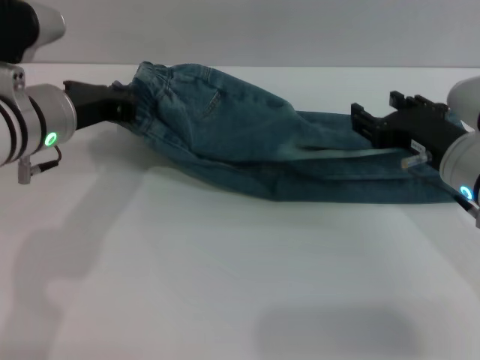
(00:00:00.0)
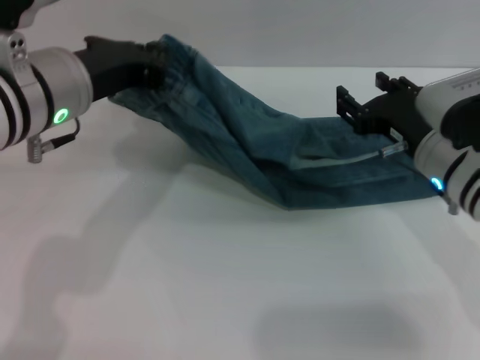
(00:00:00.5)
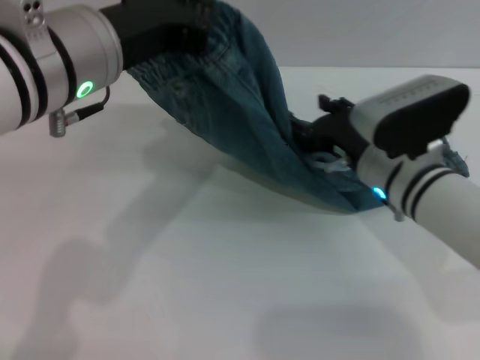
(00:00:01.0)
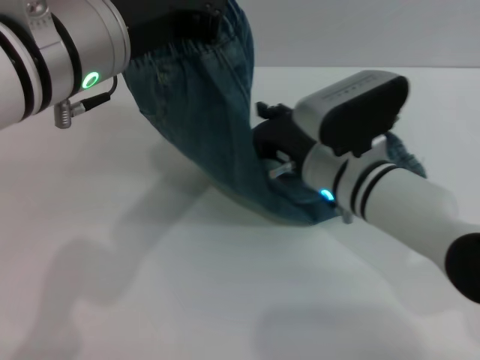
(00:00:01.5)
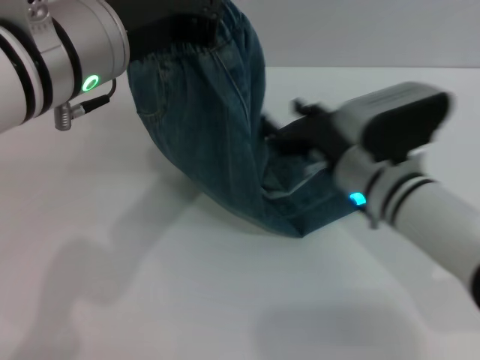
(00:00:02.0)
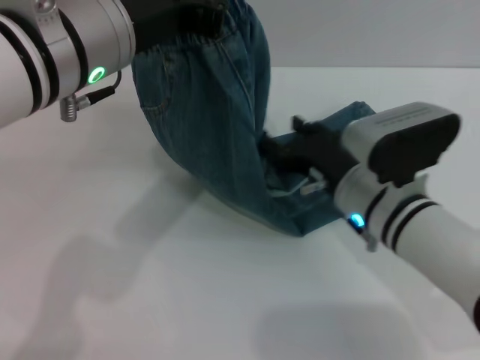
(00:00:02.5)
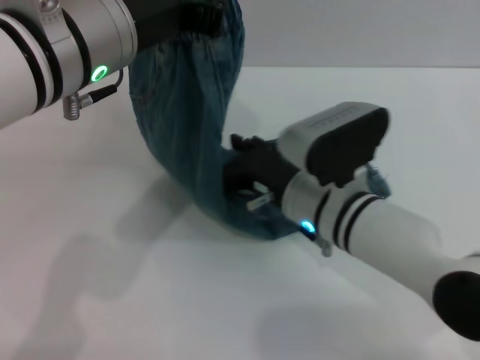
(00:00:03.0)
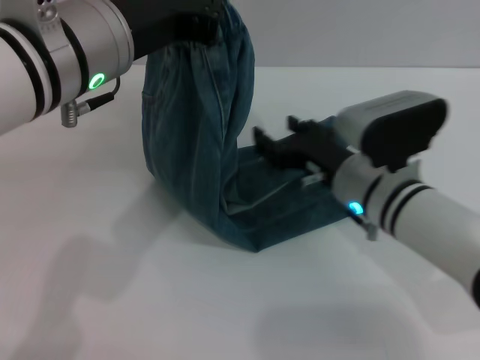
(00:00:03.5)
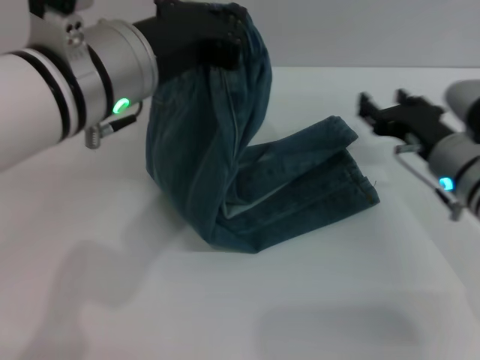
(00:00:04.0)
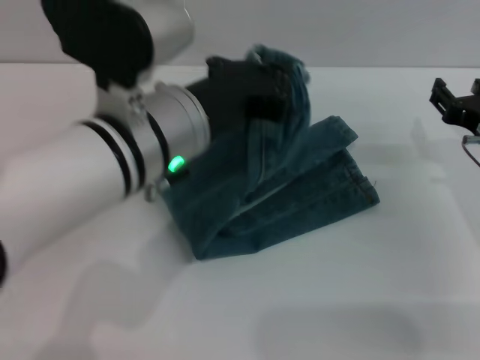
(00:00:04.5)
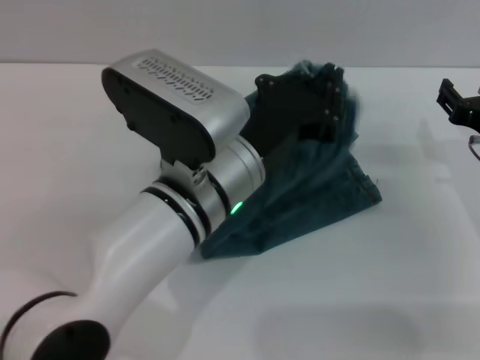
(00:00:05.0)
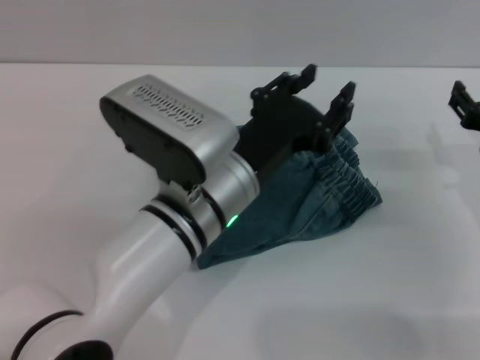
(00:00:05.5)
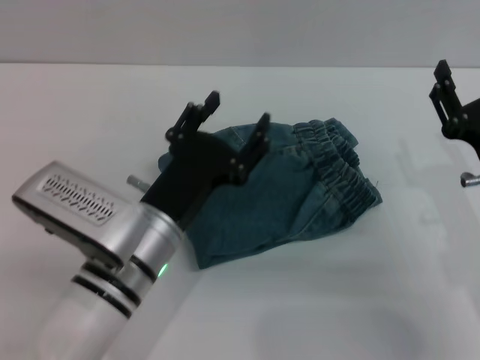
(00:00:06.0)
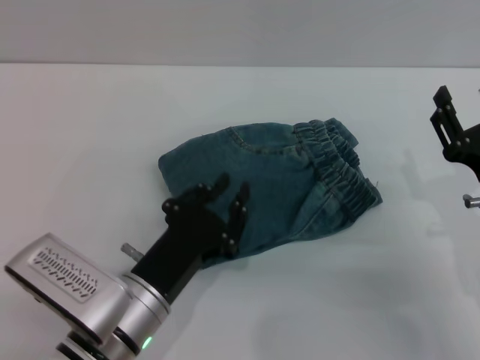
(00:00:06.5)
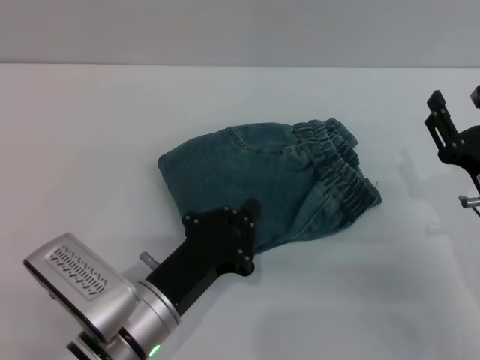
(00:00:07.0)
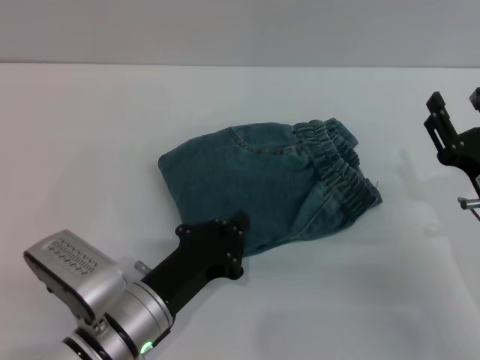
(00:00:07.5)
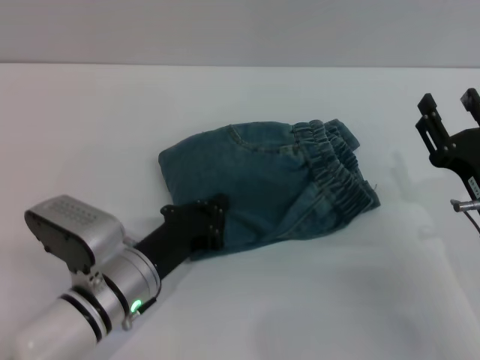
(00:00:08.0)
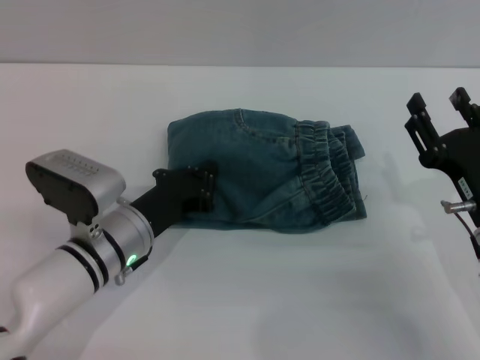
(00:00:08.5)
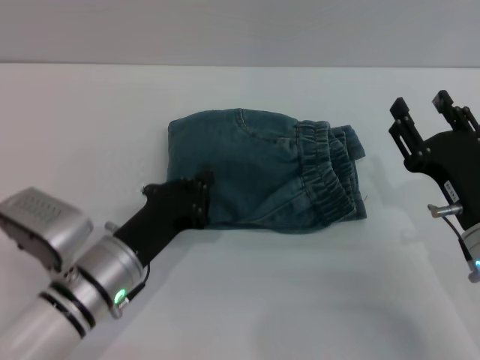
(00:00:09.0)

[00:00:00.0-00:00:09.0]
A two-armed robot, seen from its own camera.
Step, 00:00:00.0 to 00:00:05.0: Fold the pants from left to right with the left gripper.
00:00:00.0 to 00:00:02.0: The left gripper moves upward and to the right, some 10 cm. Meanwhile the right gripper travels to the left by approximately 10 cm.
00:00:02.0 to 00:00:04.5: The left gripper shifts approximately 5 cm downward; the right gripper goes approximately 15 cm to the right.
00:00:04.5 to 00:00:07.0: The left gripper shifts some 20 cm downward and backward, and opens, then closes once more. Meanwhile the right gripper shifts some 10 cm backward.
00:00:07.0 to 00:00:09.0: The left gripper is displaced forward by some 5 cm.

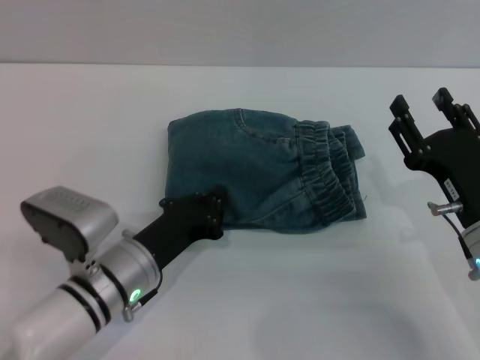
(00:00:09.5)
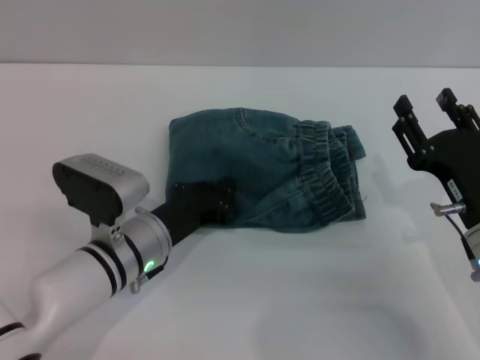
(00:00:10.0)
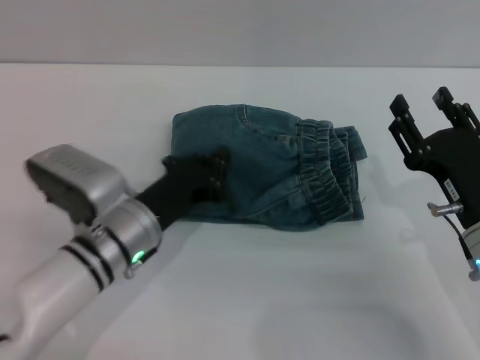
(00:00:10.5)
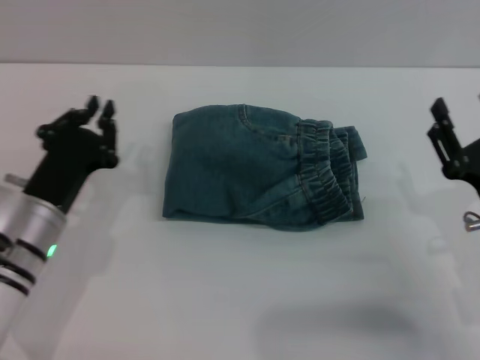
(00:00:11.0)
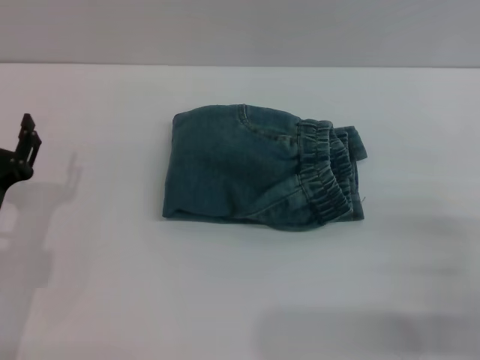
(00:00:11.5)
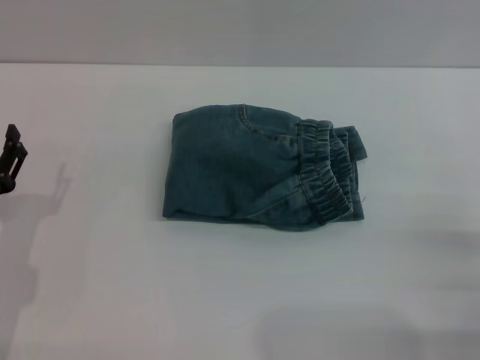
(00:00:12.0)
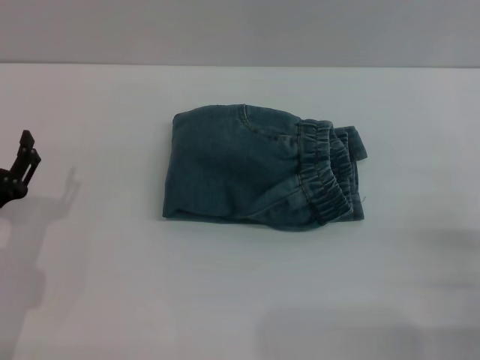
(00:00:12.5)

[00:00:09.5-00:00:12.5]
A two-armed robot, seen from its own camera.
00:00:09.5 to 00:00:11.0: The left gripper heads to the left, covering about 5 cm.
00:00:11.0 to 00:00:12.5: The right gripper is displaced to the right by about 5 cm, while the left gripper heads to the left, covering about 5 cm, and opens.

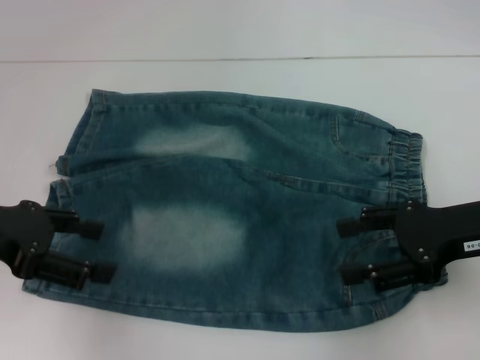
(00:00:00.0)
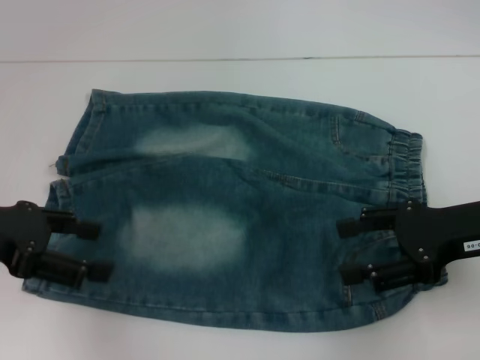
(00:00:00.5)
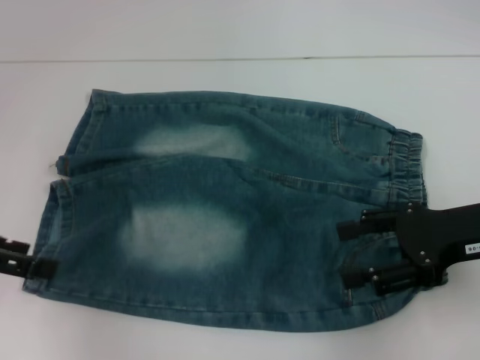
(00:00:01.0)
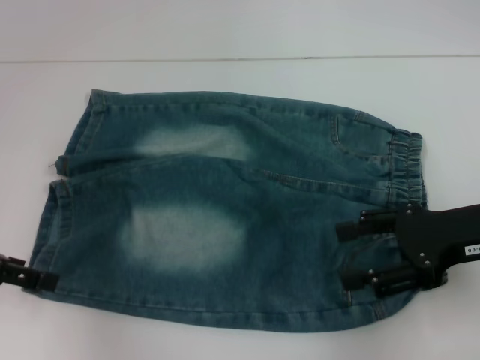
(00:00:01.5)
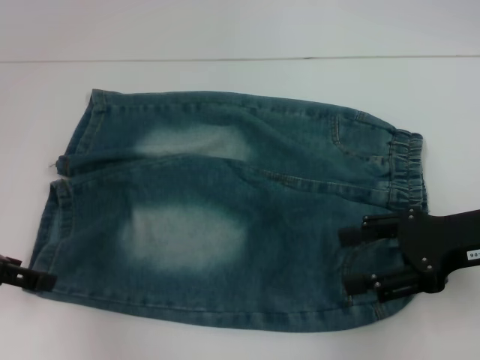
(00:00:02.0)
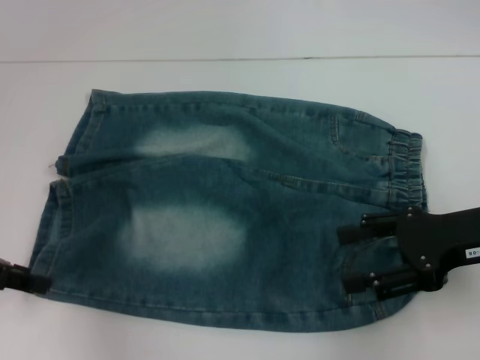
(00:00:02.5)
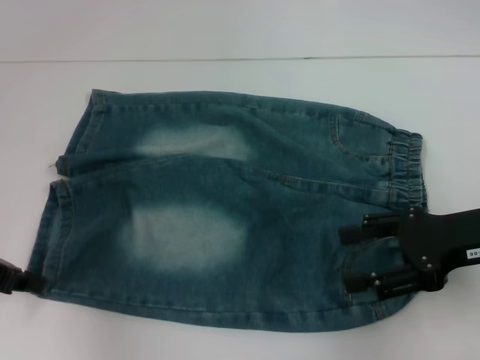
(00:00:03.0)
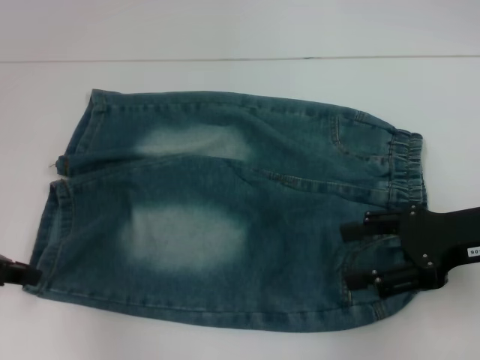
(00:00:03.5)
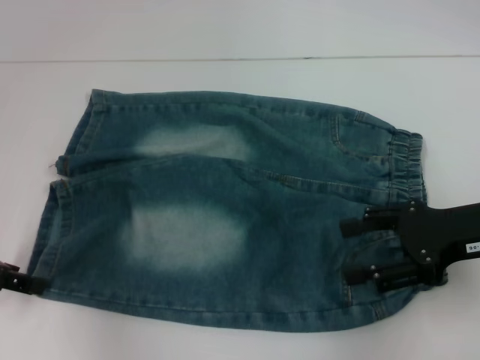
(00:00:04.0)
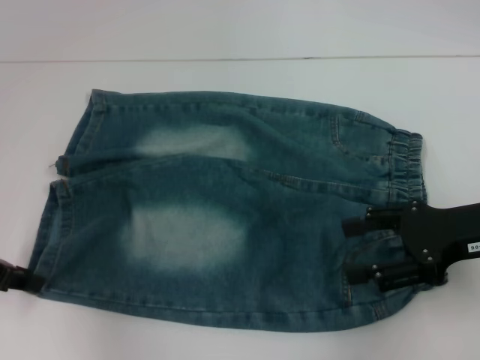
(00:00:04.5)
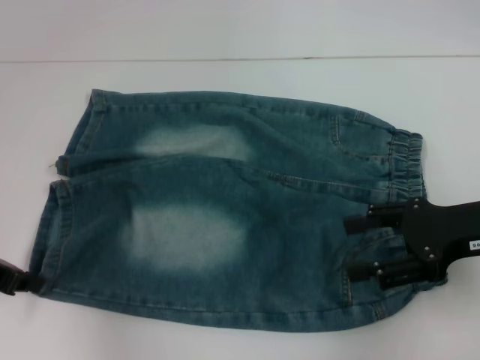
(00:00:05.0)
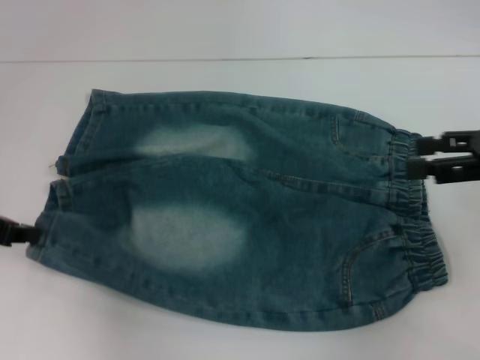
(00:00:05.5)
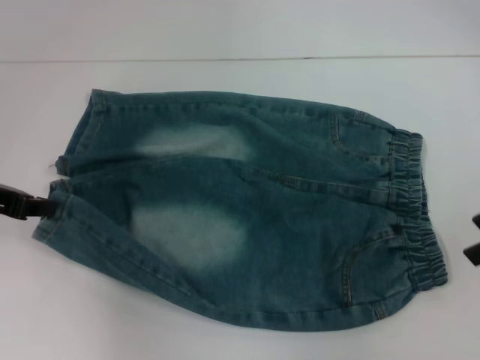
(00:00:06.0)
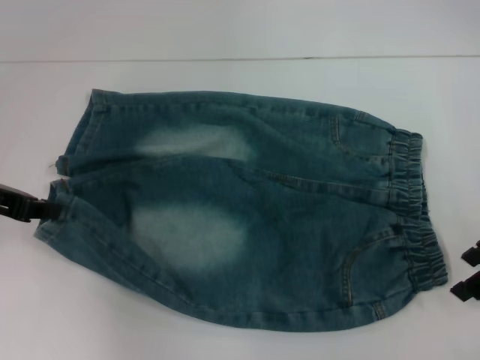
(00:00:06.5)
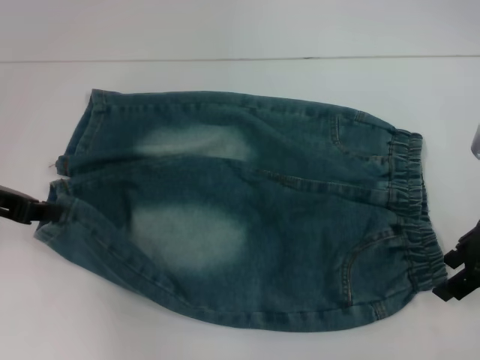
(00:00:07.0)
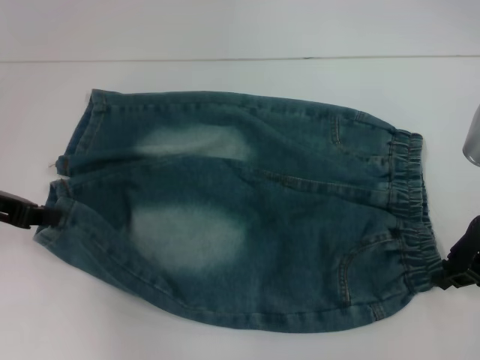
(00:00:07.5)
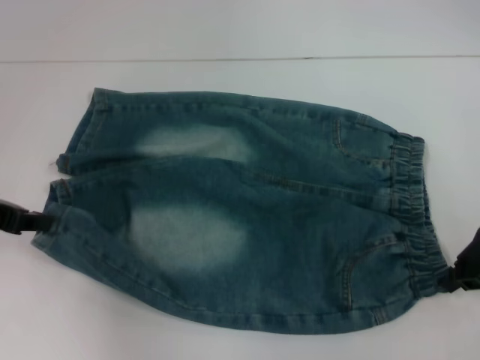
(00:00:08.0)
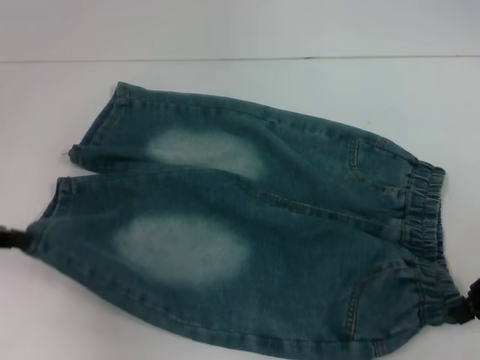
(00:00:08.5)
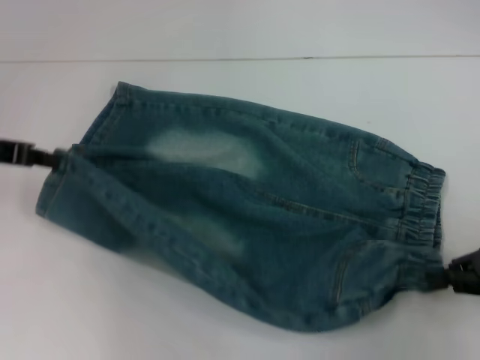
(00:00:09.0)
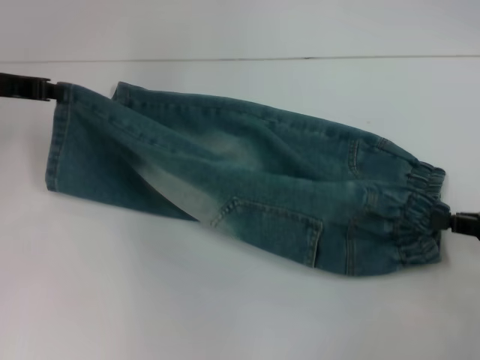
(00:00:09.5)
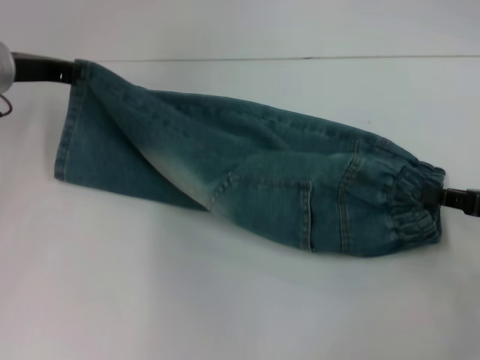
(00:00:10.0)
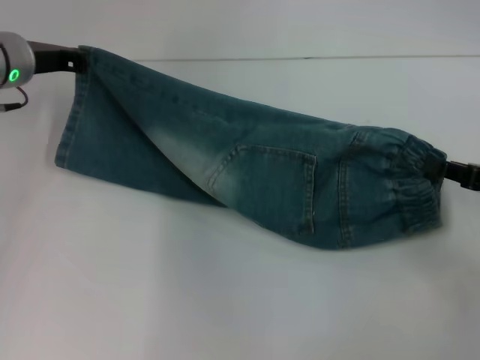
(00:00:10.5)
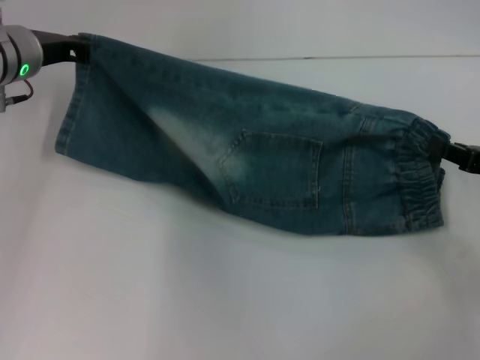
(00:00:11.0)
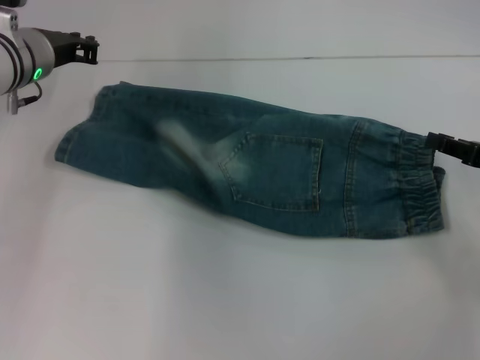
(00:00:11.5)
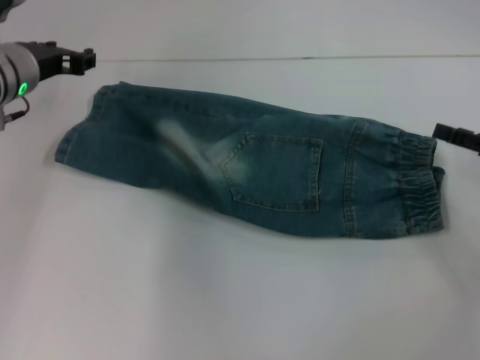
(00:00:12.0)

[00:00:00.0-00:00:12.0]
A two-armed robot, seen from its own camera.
Step, 00:00:00.0 to 00:00:04.5: Grab the lower left pant leg with your left hand.
Step, 00:00:05.0 to 00:00:08.0: Hold the lower right waistband with your right hand.
Step, 00:00:08.5 to 00:00:11.0: Fold upward with your right hand.
00:00:00.0 to 00:00:02.0: The left gripper ends up roughly 5 cm from where it was.
00:00:04.0 to 00:00:06.0: The right gripper goes about 10 cm upward and to the right, while the left gripper closes its fingers.
00:00:06.0 to 00:00:08.0: The right gripper heads downward, covering approximately 5 cm, and closes.
00:00:08.0 to 00:00:10.0: The left gripper travels forward and to the right by some 15 cm; the right gripper shifts some 10 cm to the right and downward.
00:00:10.0 to 00:00:12.0: The left gripper opens its fingers. Meanwhile the right gripper opens its fingers.

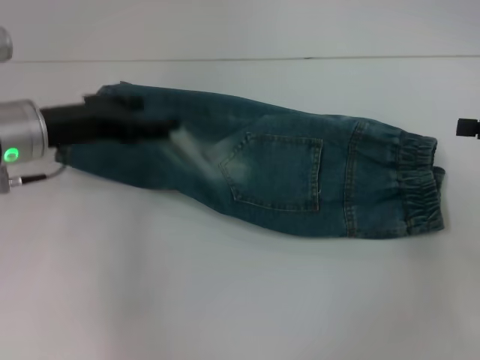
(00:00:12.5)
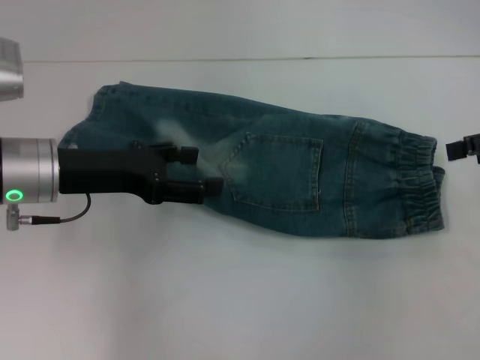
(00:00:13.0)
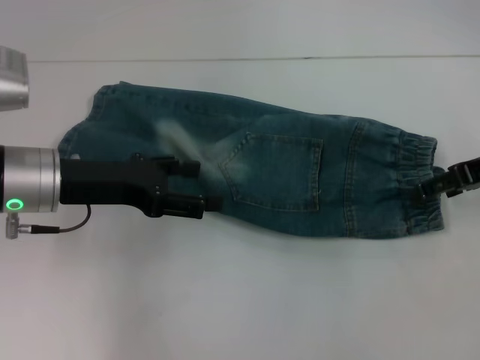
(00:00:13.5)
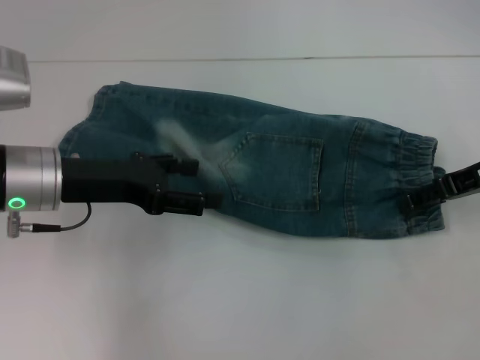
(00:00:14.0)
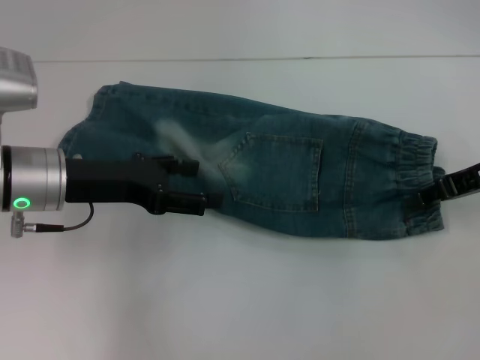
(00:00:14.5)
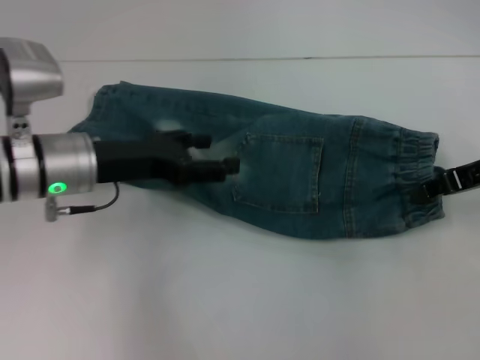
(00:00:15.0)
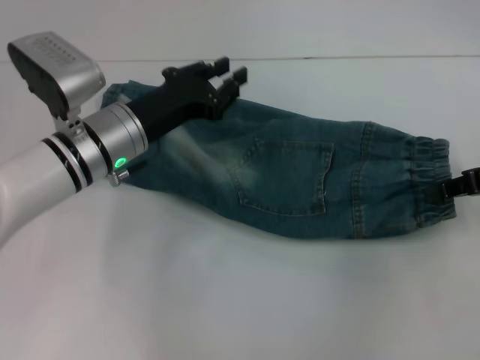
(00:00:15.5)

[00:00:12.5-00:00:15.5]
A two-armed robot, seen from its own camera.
Step, 00:00:12.5 to 00:00:14.5: Grab the waistband with your right hand.
00:00:12.5 to 00:00:14.0: The right gripper shifts about 10 cm to the left.
00:00:14.0 to 00:00:15.5: The left gripper goes roughly 5 cm to the right, and closes its fingers, while the right gripper closes its fingers.
